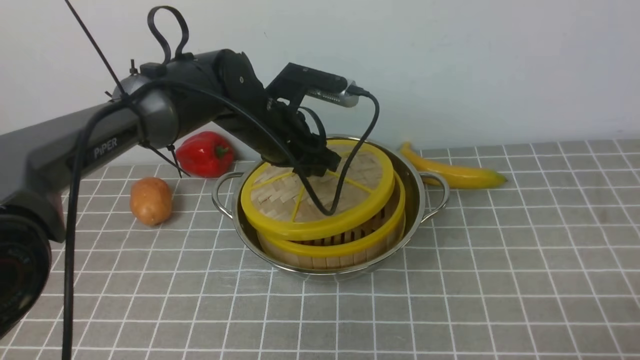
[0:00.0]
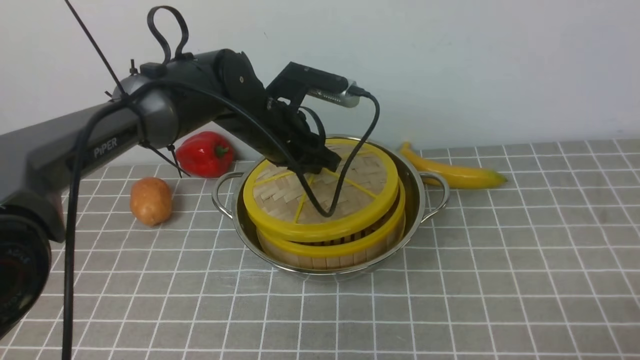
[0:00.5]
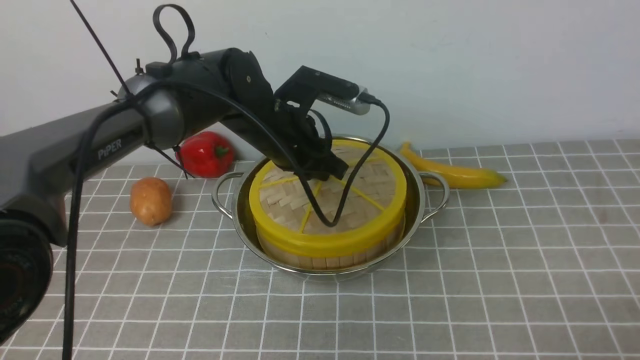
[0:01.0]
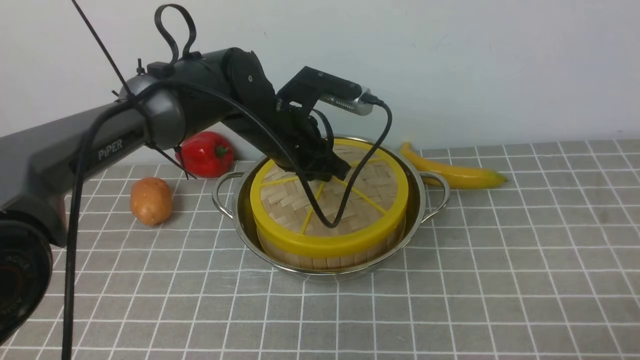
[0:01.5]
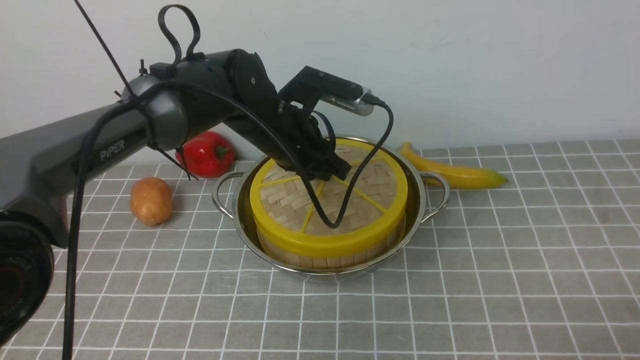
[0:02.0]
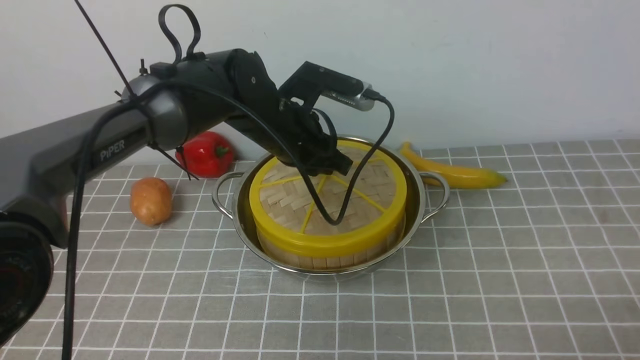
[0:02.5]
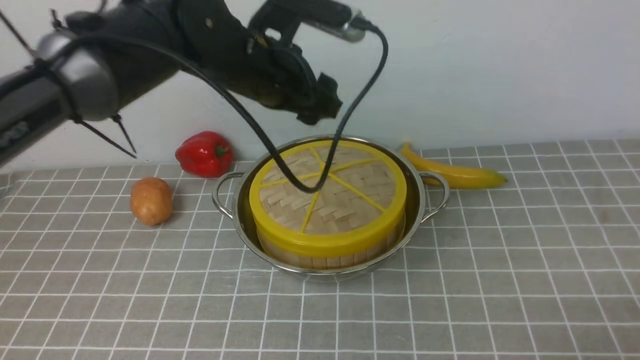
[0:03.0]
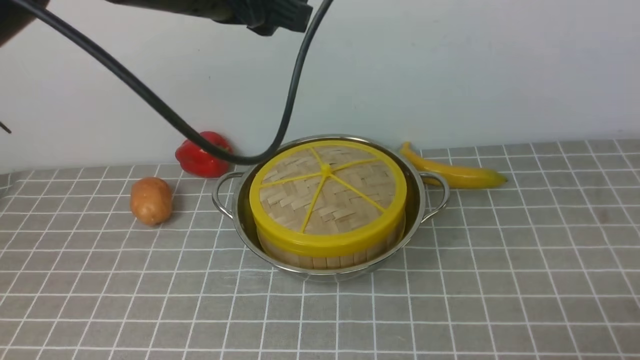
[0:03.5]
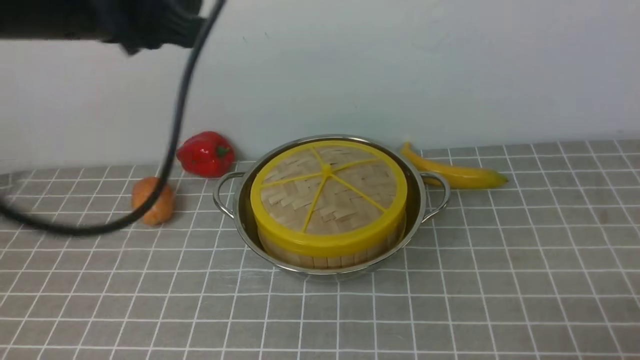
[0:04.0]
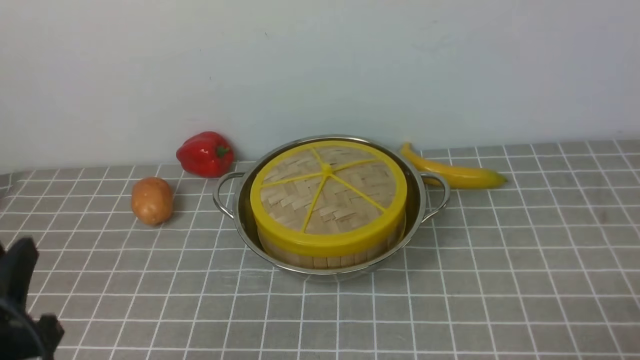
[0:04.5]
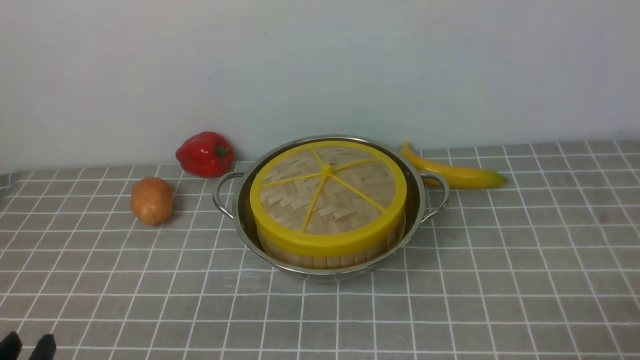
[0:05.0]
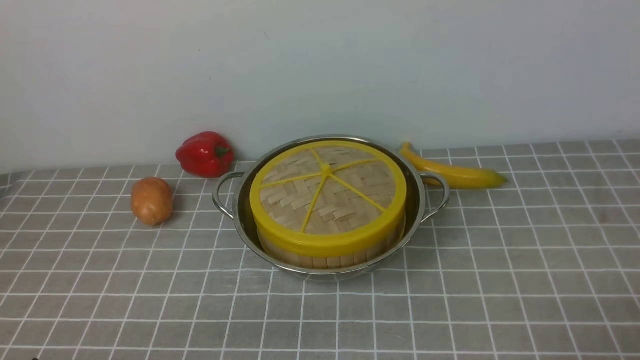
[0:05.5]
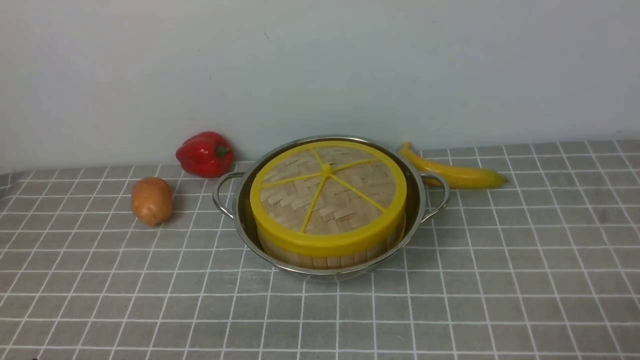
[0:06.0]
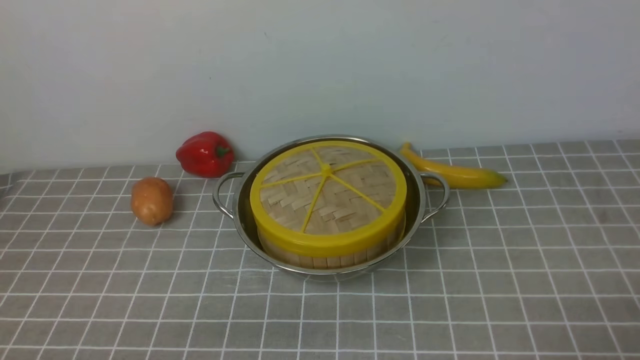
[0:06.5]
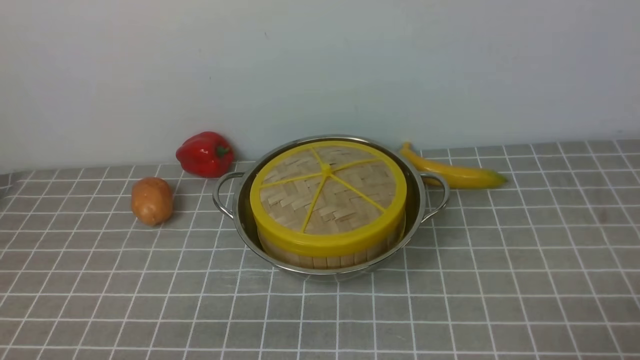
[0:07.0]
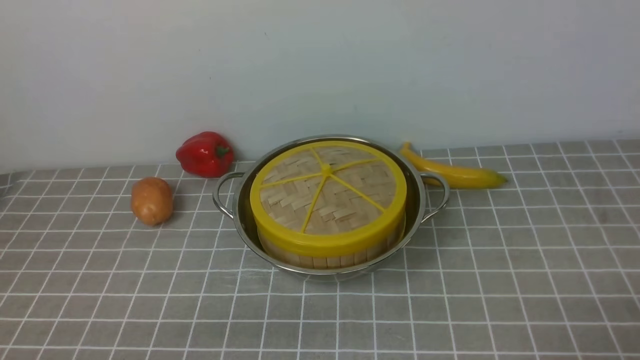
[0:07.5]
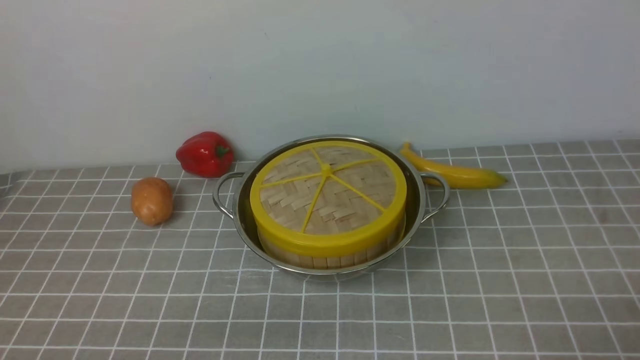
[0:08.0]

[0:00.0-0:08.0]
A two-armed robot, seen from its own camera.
Task of the whole recording: place the steamer in the pot on the grey tablecloth, and put the lid on the steamer.
Step, 0:00.0 to 0:02.5: use the left arm to place the steamer lid on the steamer.
0:00.0 to 0:02.0: The grippers make only small movements.
0:02.0 to 0:04.0: The left gripper shifts roughly 25 cm upward, backward and to the left, and opens, then closes again.
0:04.0 to 0:06.0: The left gripper travels downward and backward by approximately 30 cm.
0:06.0 to 0:08.0: Both grippers stay put.

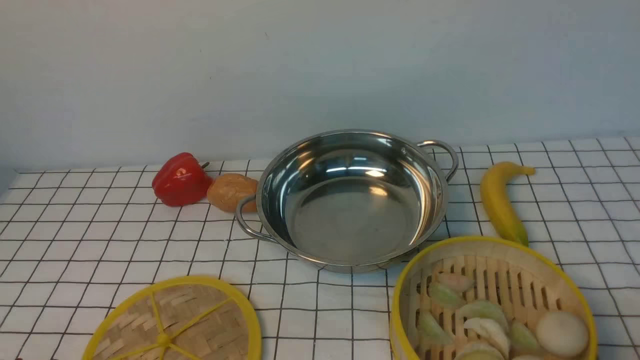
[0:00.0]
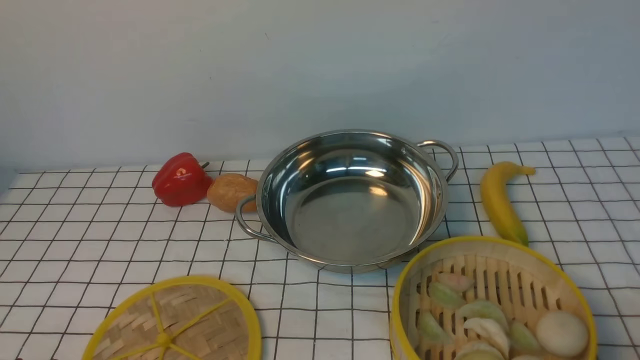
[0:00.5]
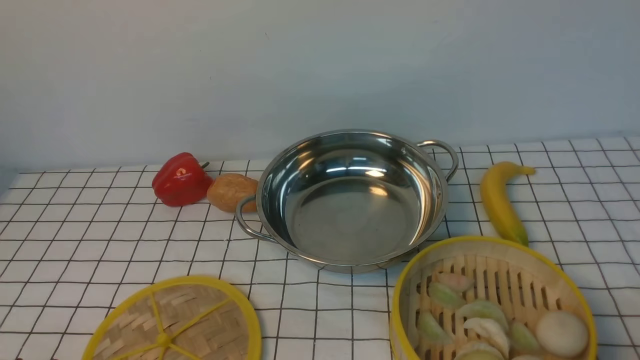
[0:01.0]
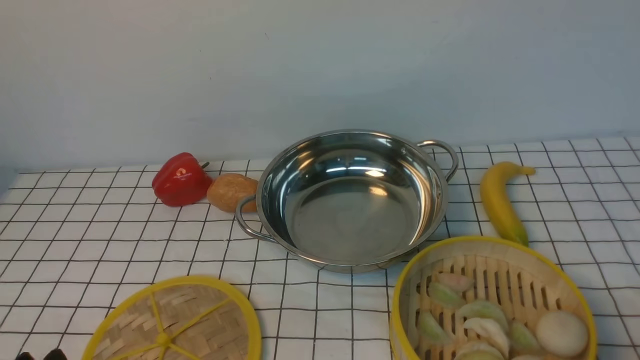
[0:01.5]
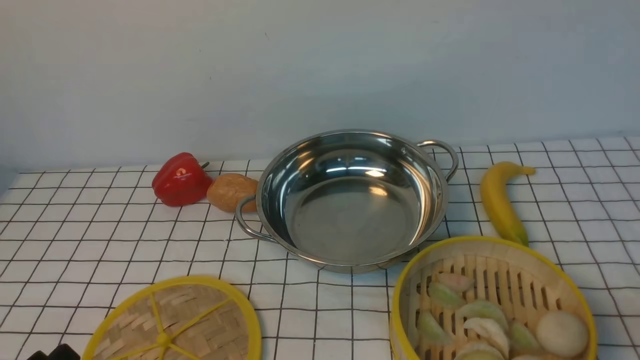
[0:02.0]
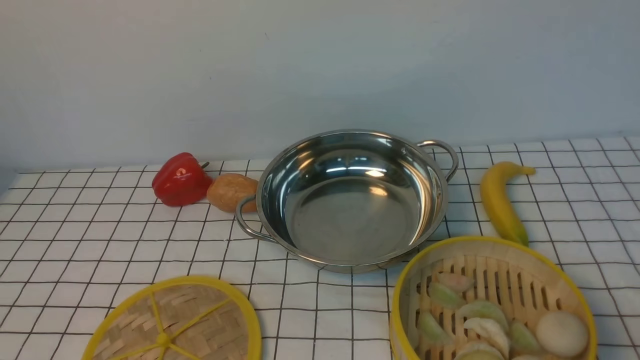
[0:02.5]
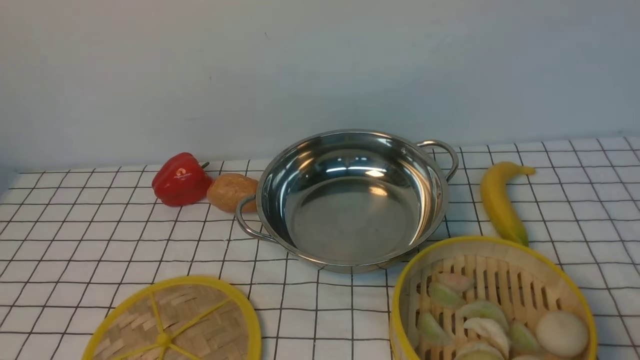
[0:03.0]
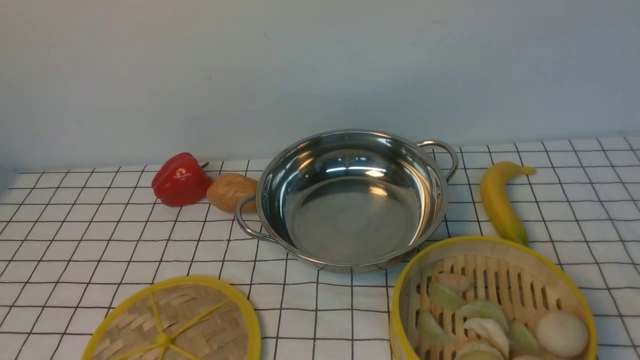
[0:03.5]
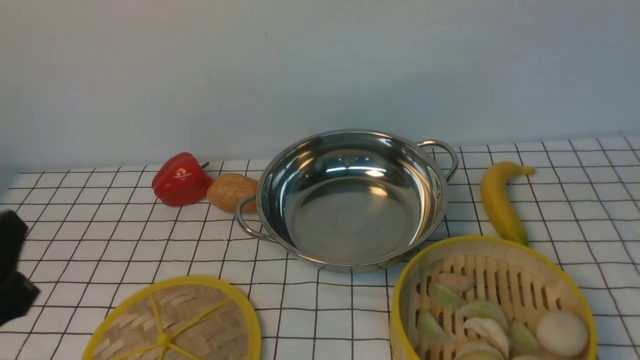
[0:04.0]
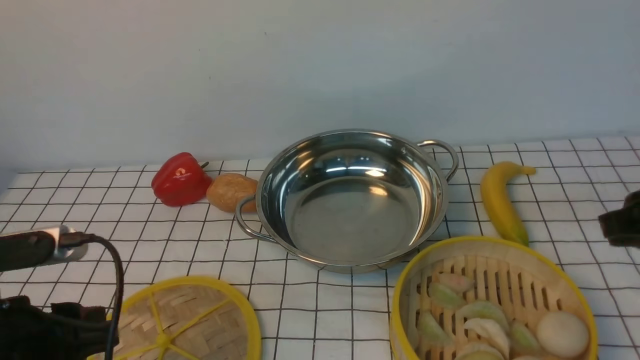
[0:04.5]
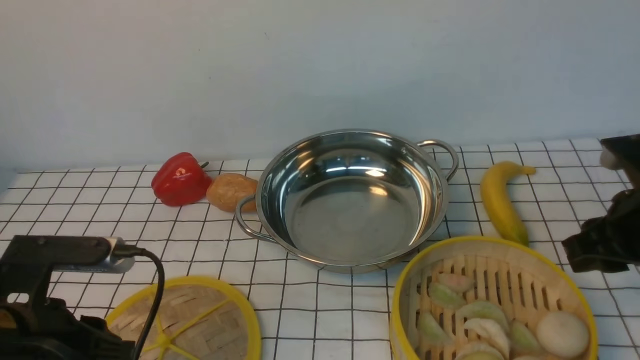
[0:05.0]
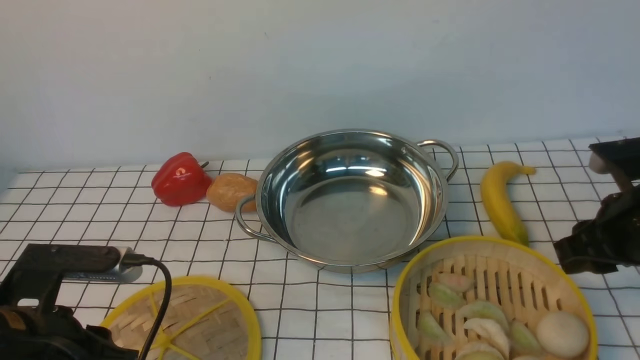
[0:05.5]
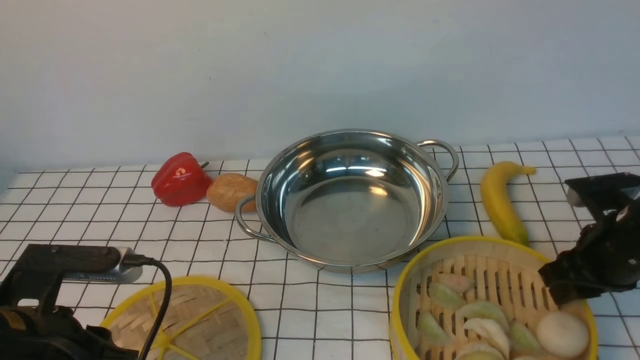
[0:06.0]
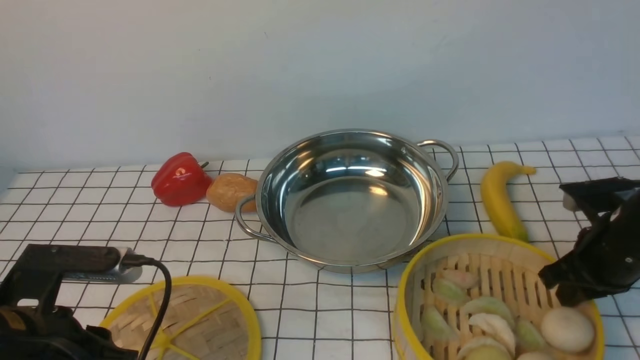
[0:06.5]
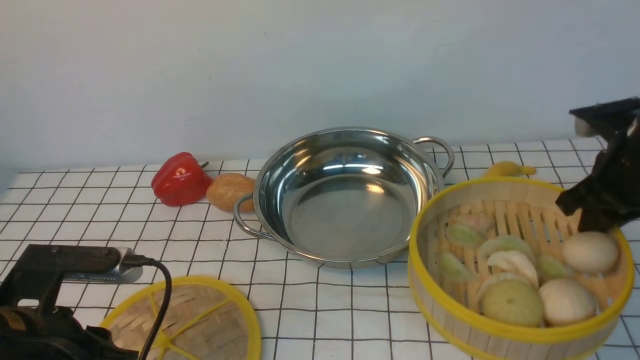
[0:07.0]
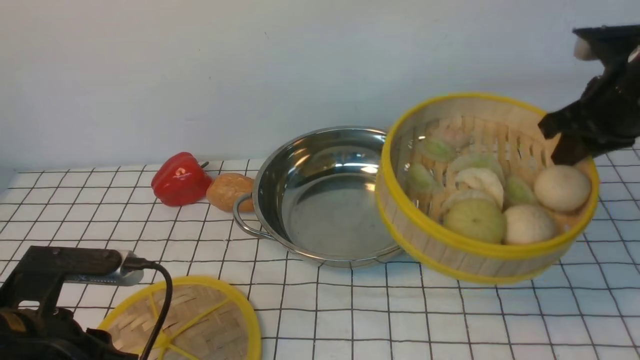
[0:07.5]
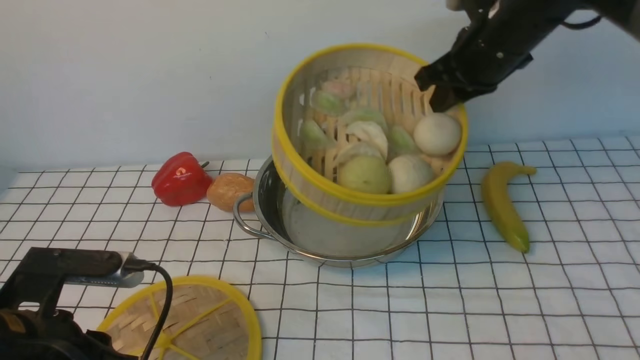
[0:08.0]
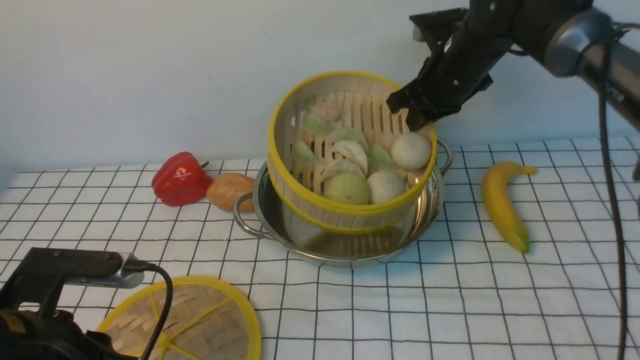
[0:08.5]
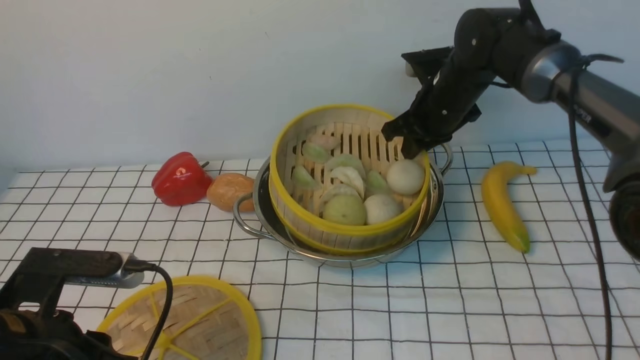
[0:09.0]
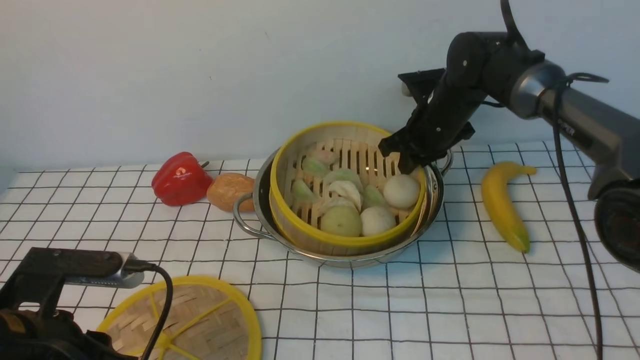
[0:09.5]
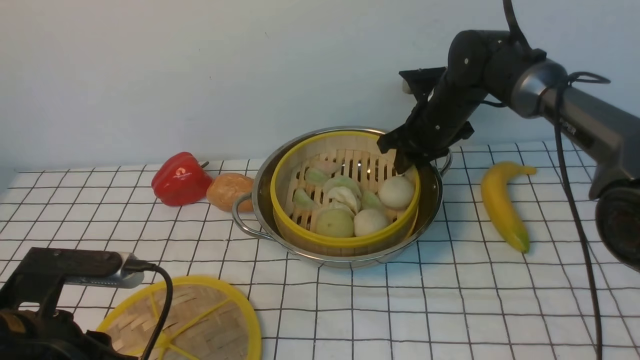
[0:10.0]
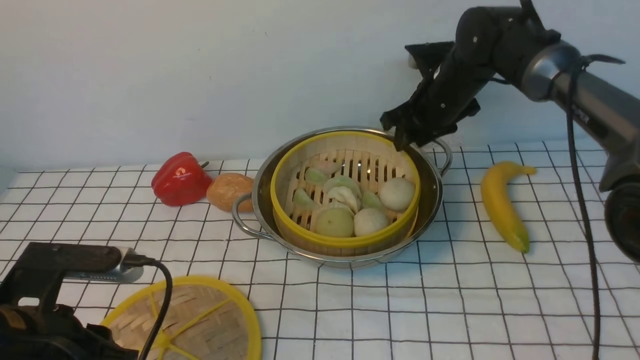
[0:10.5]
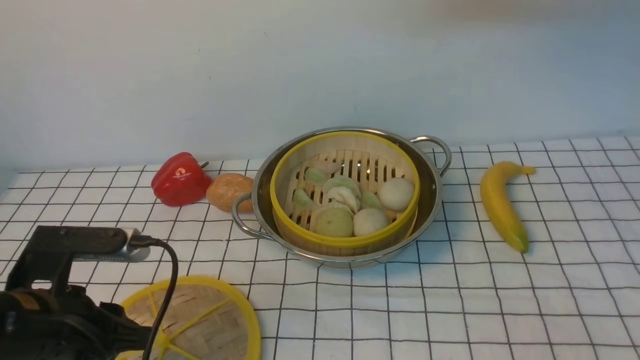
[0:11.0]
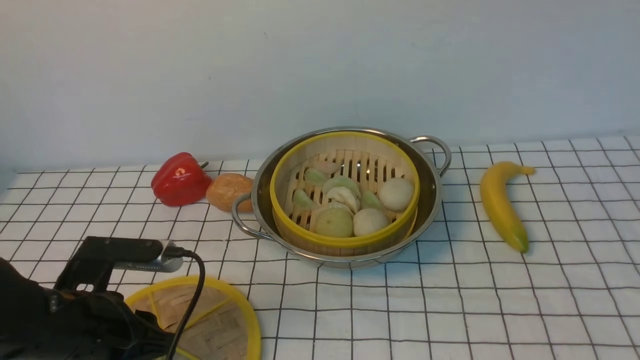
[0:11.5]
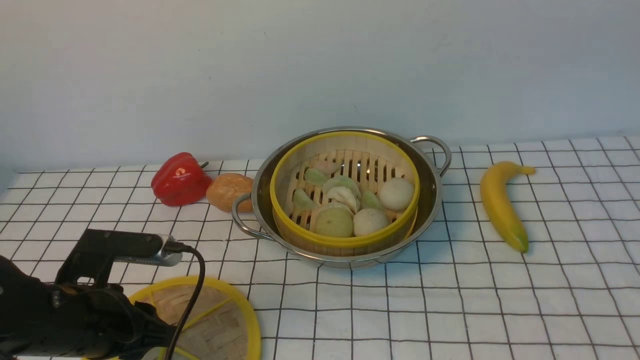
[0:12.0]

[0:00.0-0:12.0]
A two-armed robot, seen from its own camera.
Task of the whole recording: place the steamer in the pot on the white tablecloth, and put the lid on the steamer.
Step, 0:00.0 to 0:06.5: use the right arm to lift the steamer closest to it.
Step, 0:07.0 to 0:10.0: use the right arm to put the steamer into the iron steamer pot in the middle.
0:02.0 to 0:04.0: The left gripper goes roughly 10 cm upward and forward.
0:04.0 to 0:06.0: The right gripper goes approximately 25 cm downward and forward. The left gripper is displaced forward and downward by some 10 cm.
0:06.0 to 0:08.0: The right gripper shifts about 25 cm forward, upward and to the left, and closes.
0:08.0 to 0:10.0: The right gripper heads downward and forward, covering approximately 15 cm, and opens its fingers.
0:10.0 to 0:12.0: The right gripper travels upward and backward by about 50 cm, and closes up. Meanwhile the left gripper moves about 5 cm.
